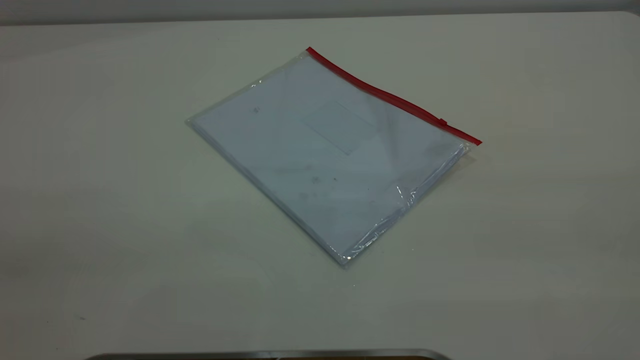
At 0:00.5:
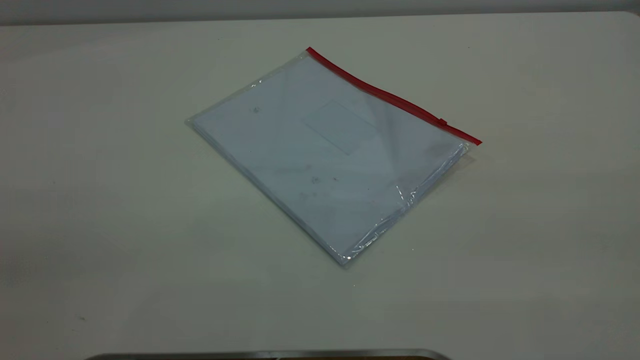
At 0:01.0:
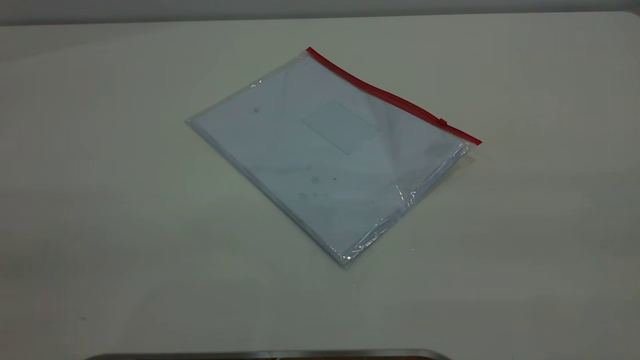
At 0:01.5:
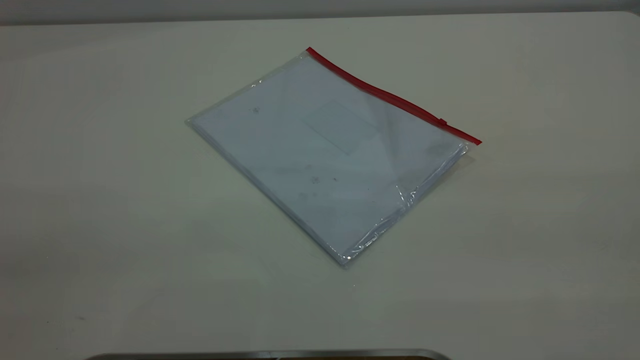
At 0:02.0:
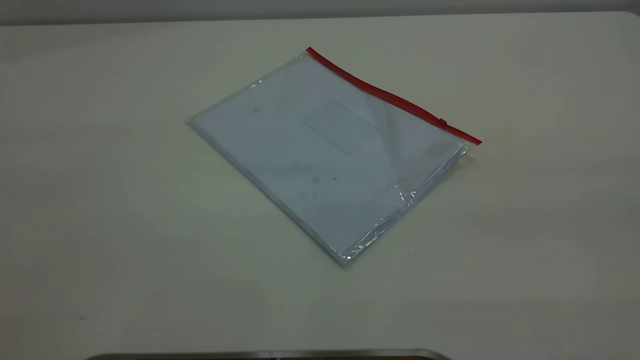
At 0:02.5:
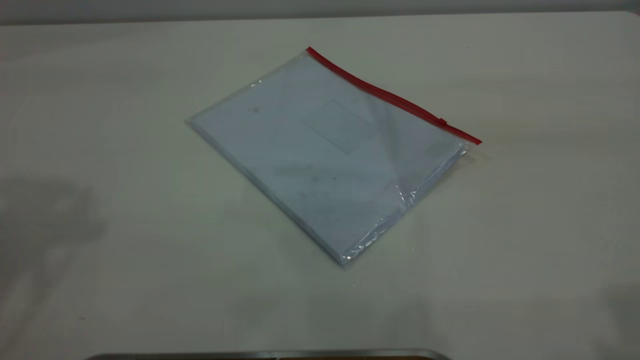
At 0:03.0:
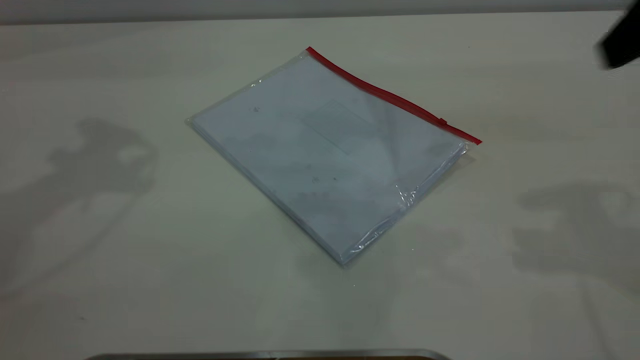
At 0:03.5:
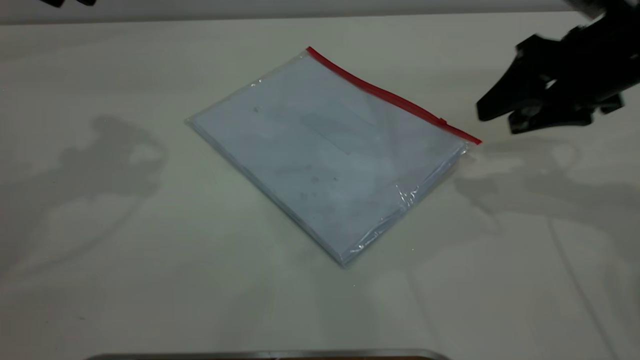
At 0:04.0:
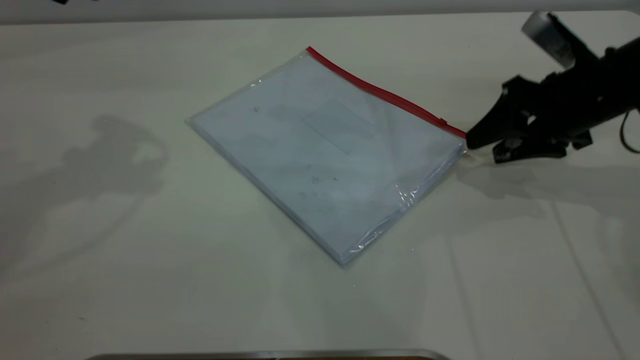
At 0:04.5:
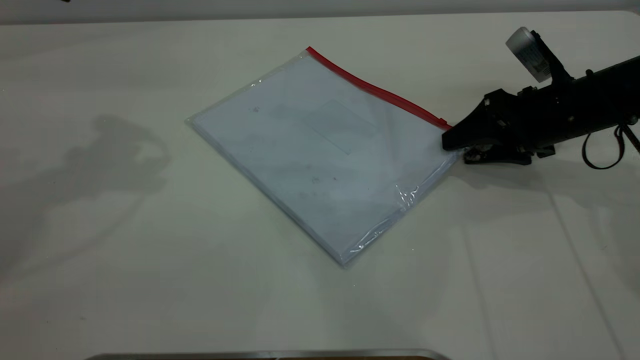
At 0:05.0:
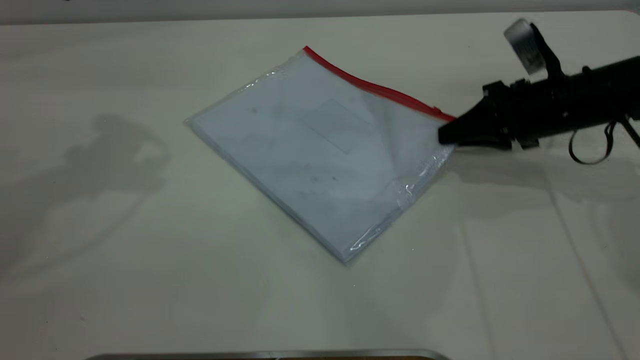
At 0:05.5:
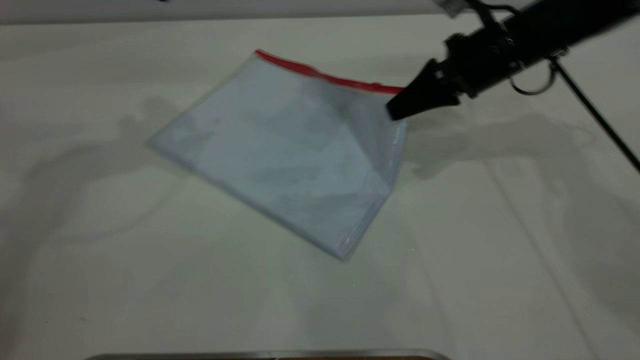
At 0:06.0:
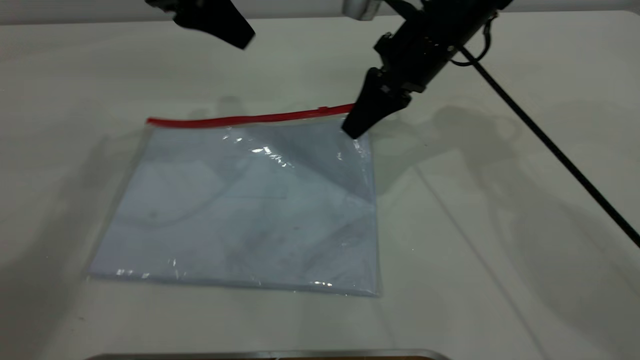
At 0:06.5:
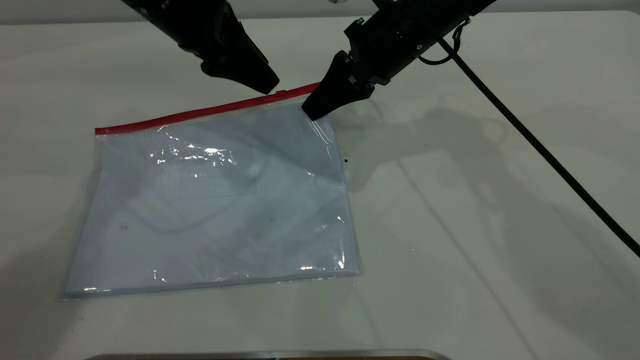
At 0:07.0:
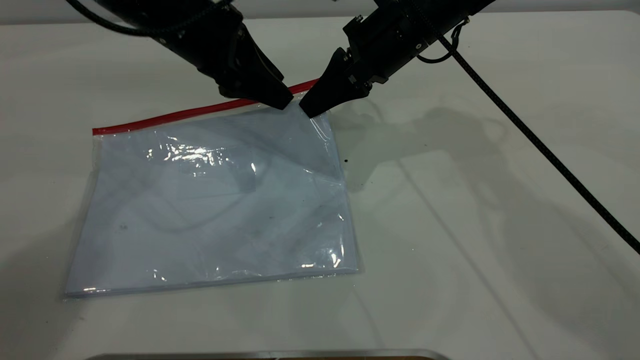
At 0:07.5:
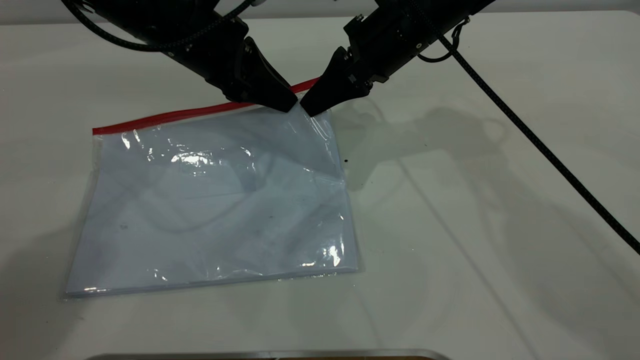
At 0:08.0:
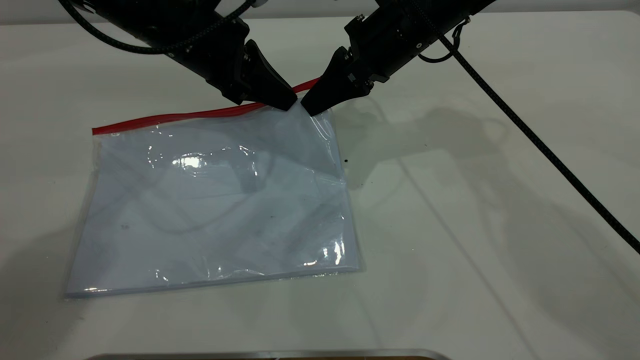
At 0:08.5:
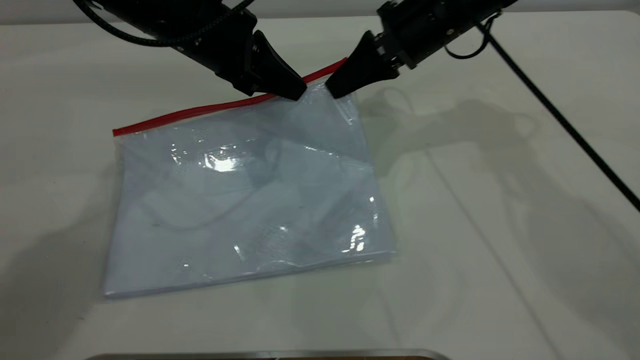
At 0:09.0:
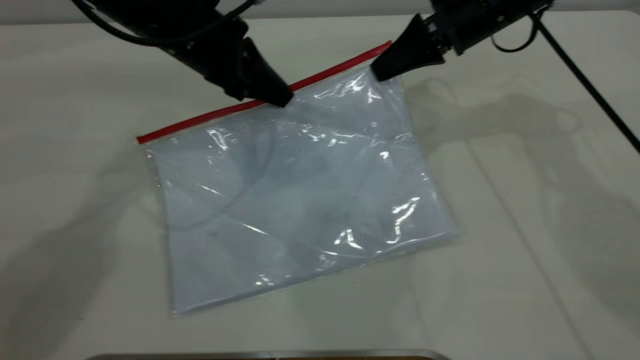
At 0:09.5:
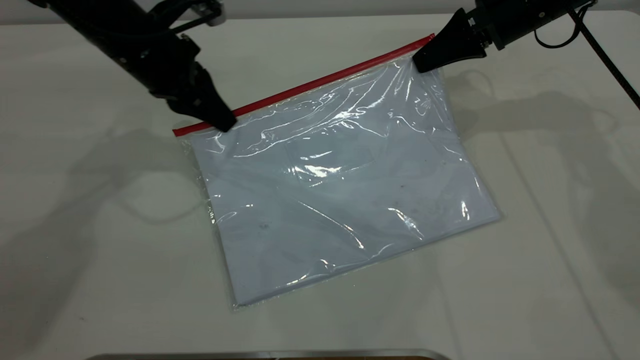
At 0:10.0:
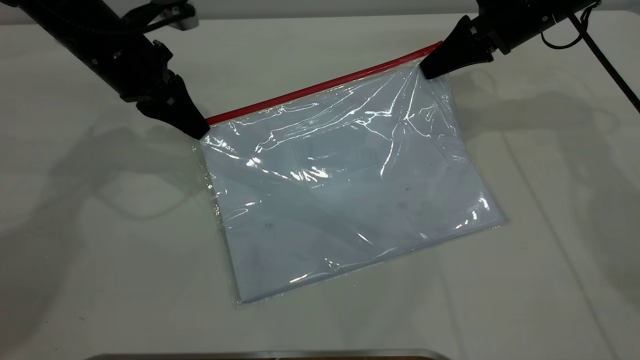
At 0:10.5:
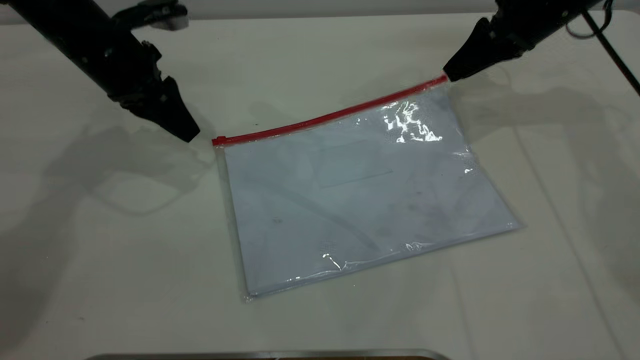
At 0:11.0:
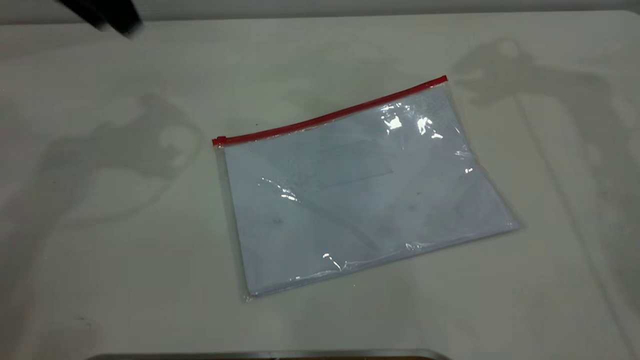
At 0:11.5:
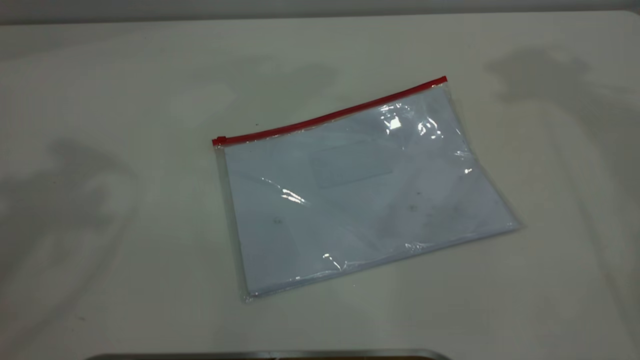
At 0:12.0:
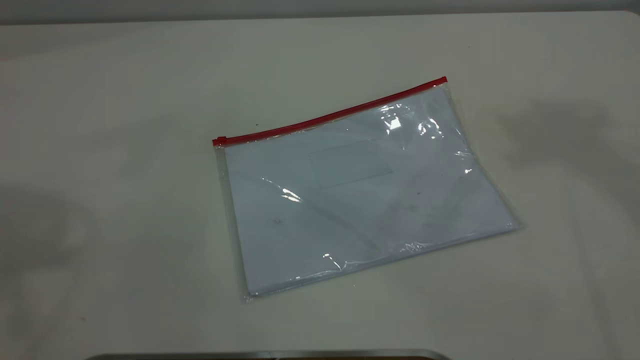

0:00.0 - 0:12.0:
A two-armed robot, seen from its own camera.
Step, 0:00.0 - 0:05.0: Pick up the transparent plastic bag with the right gripper.
Step, 0:05.5 - 0:10.0: Pulling up the zipper on the transparent plastic bag with the left gripper to close it.
0:02.0 - 0:04.0: The right gripper goes approximately 50 cm forward and downward.
0:04.0 - 0:06.0: The left gripper travels to the right, downward and forward by roughly 15 cm. Meanwhile the right gripper moves to the left and forward, some 20 cm, and closes up.
0:06.0 - 0:08.0: The left gripper travels downward by some 10 cm, and closes its fingers.
0:08.0 - 0:10.0: The right gripper is displaced to the right by about 15 cm. The left gripper moves to the left, roughly 10 cm.
0:10.0 - 0:12.0: The left gripper travels upward and backward by roughly 40 cm, and opens up. The right gripper heads upward, covering approximately 50 cm, and opens.

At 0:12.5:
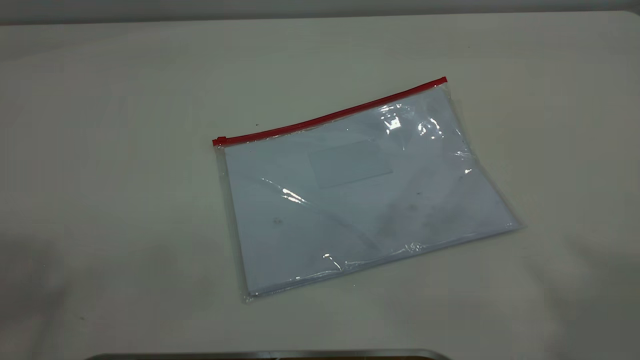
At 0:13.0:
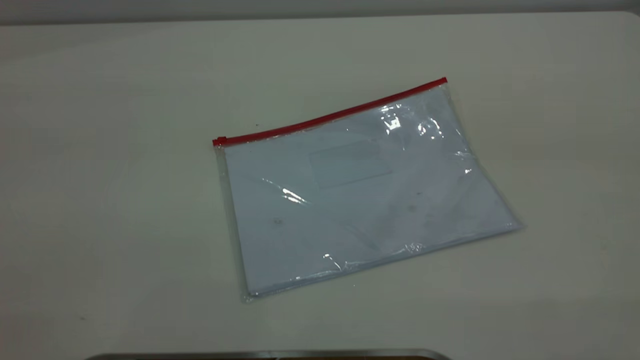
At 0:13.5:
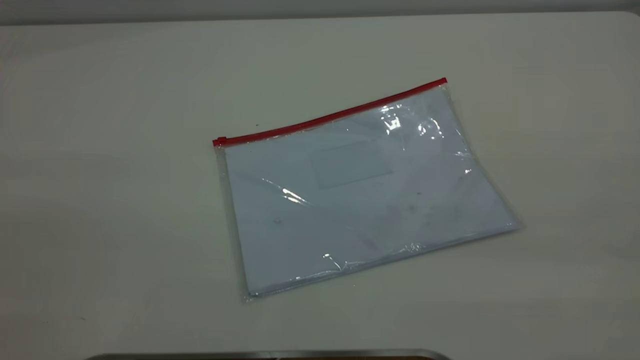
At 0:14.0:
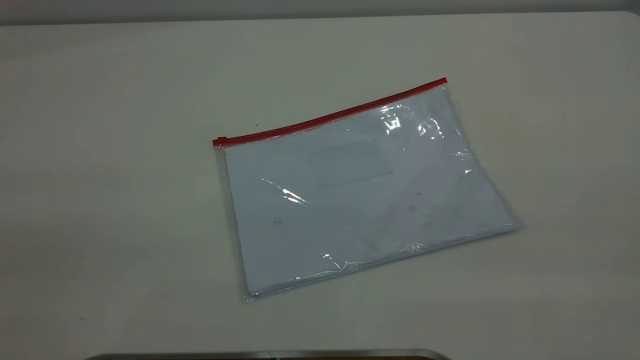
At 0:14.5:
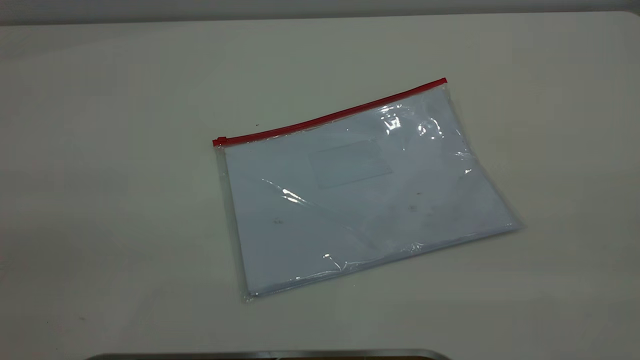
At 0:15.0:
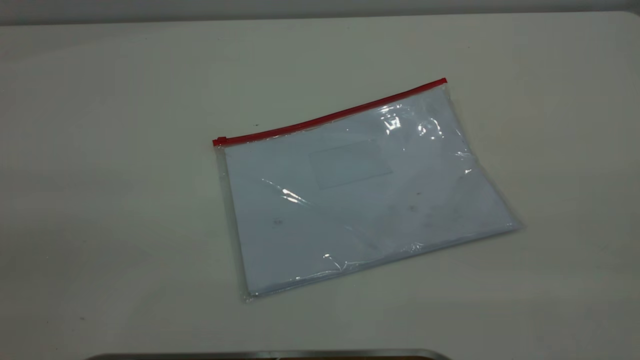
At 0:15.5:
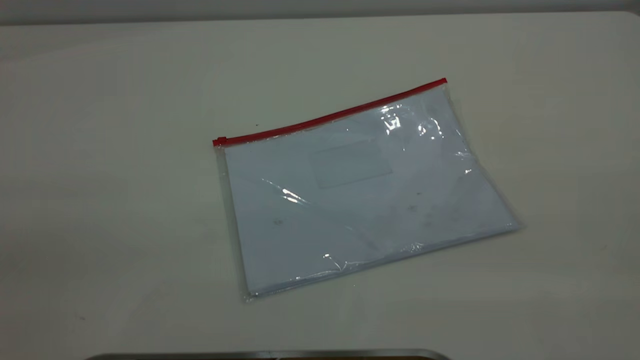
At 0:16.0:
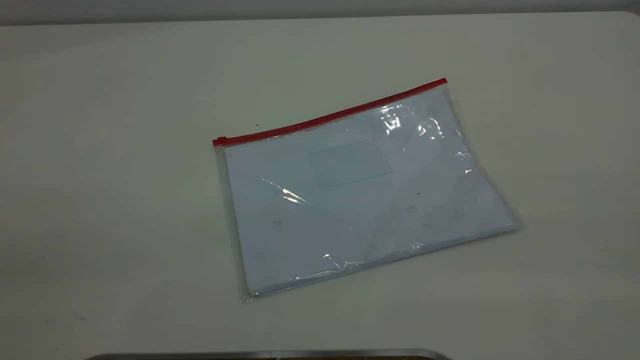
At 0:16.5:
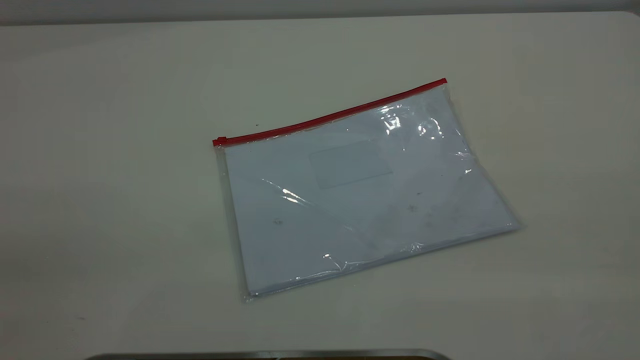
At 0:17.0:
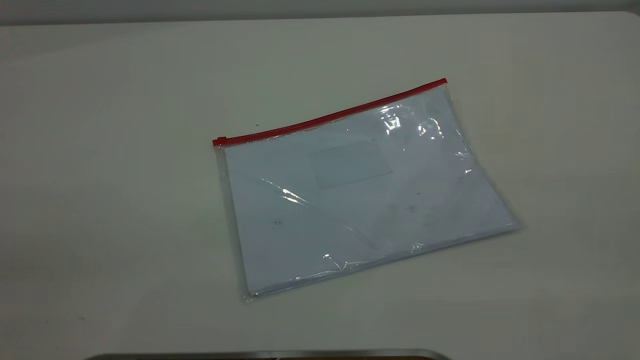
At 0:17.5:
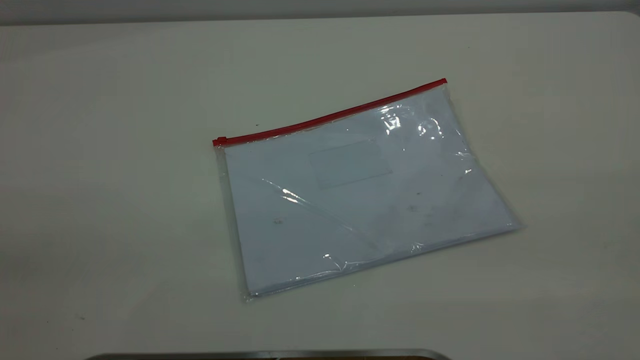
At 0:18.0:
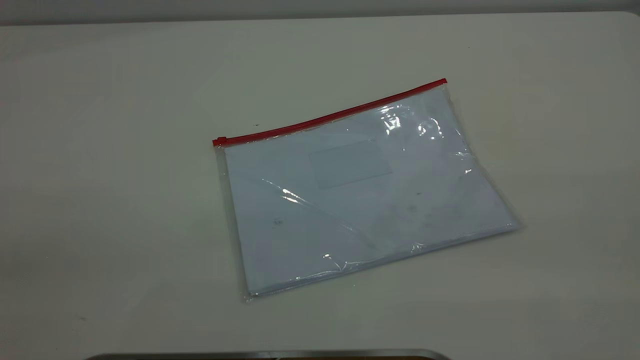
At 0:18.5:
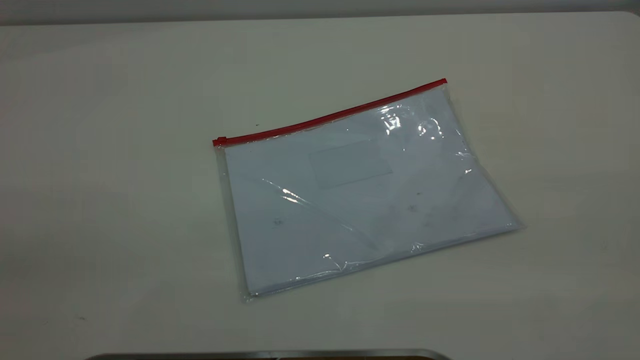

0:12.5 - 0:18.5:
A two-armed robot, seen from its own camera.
0:16.5 - 0:18.5: Neither gripper changes place.

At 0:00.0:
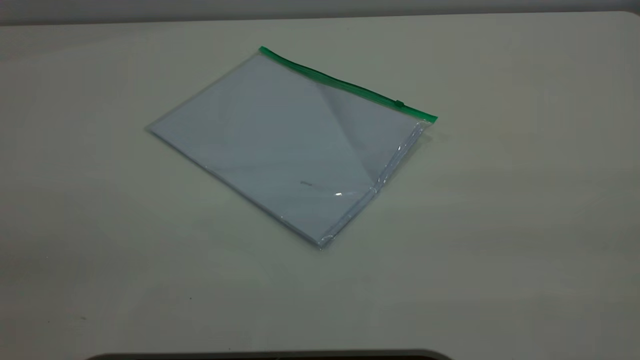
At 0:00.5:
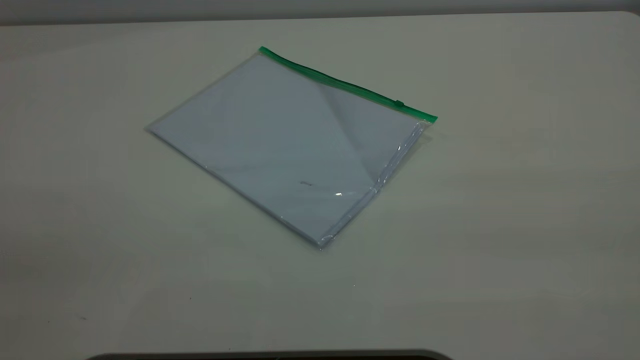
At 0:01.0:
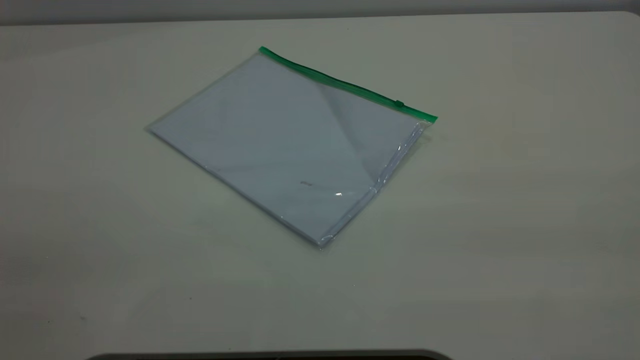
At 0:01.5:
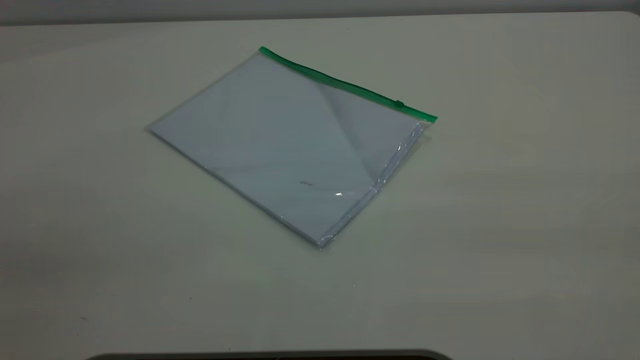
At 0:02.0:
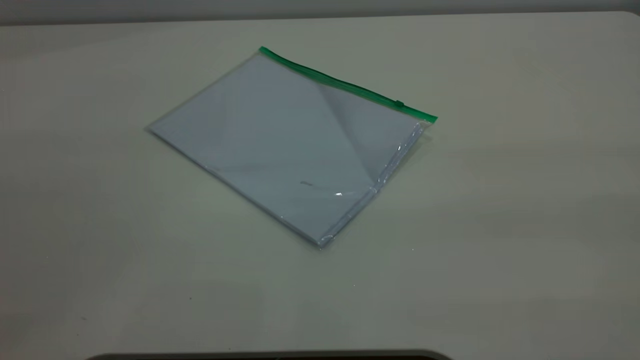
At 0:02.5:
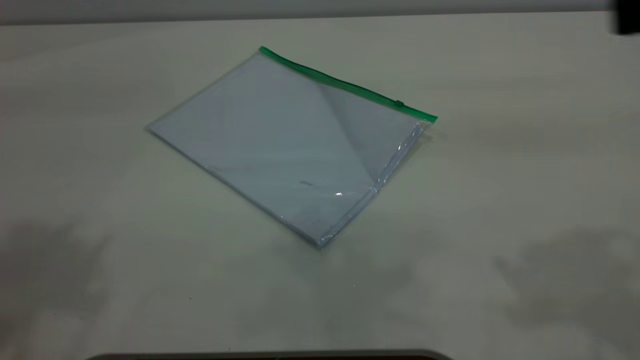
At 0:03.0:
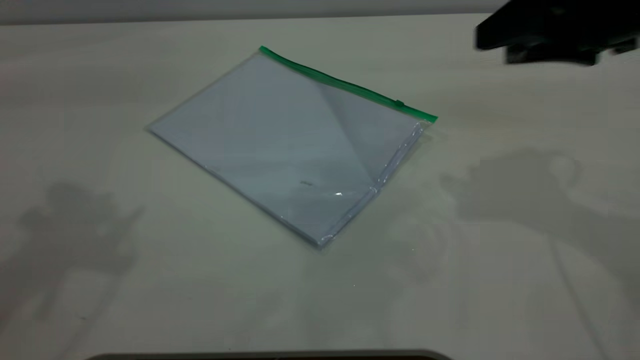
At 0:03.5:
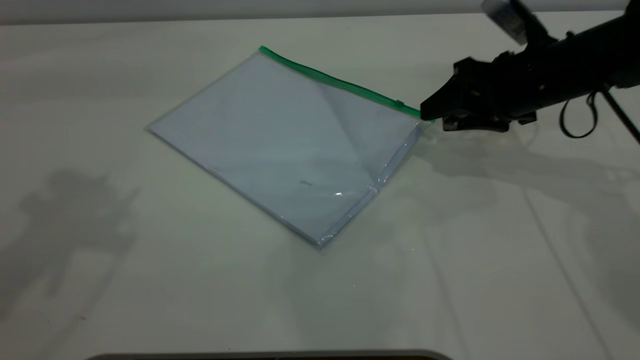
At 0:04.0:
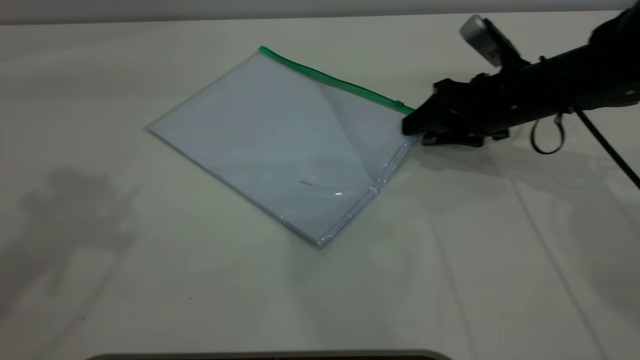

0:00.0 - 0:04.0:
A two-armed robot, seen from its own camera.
0:02.0 - 0:04.0: The right gripper moves forward and downward, approximately 50 cm.
